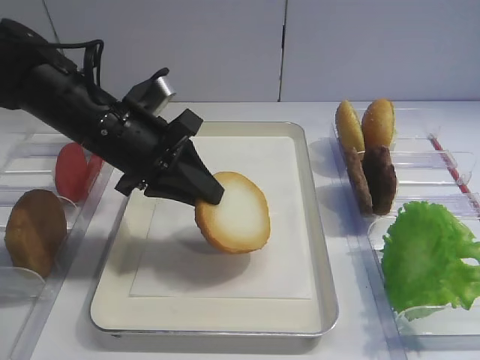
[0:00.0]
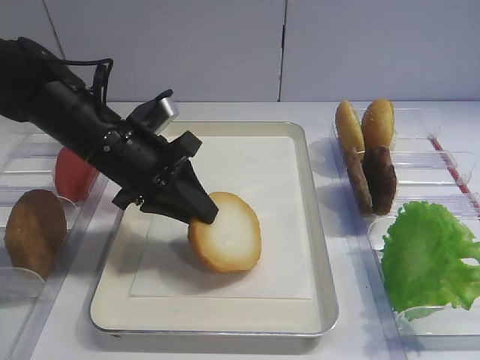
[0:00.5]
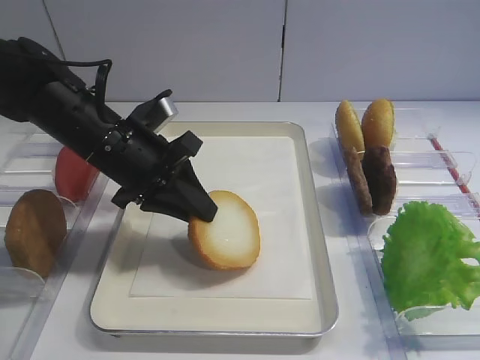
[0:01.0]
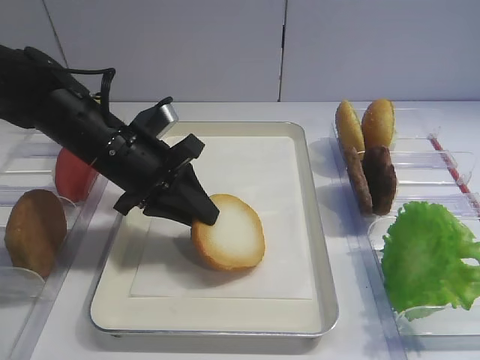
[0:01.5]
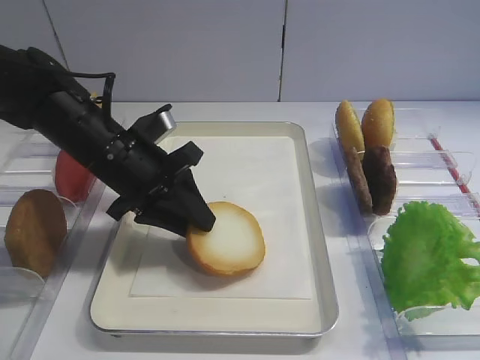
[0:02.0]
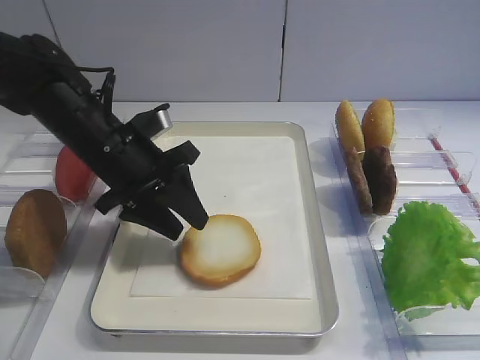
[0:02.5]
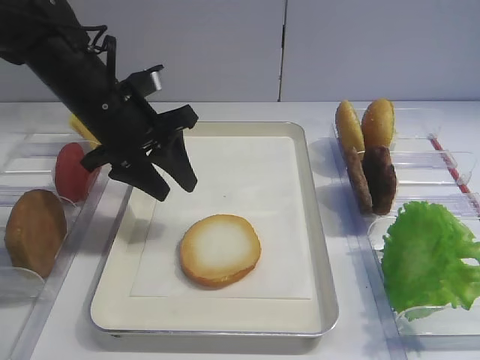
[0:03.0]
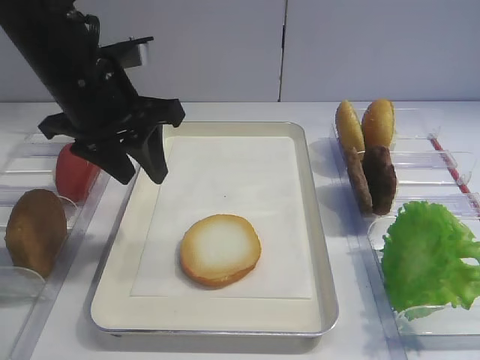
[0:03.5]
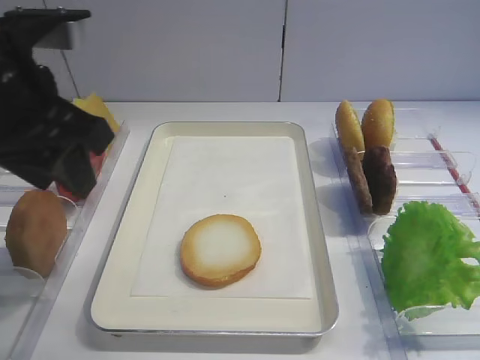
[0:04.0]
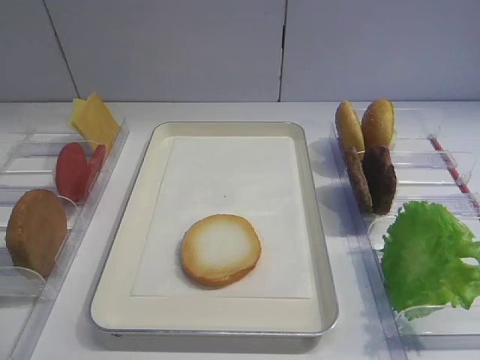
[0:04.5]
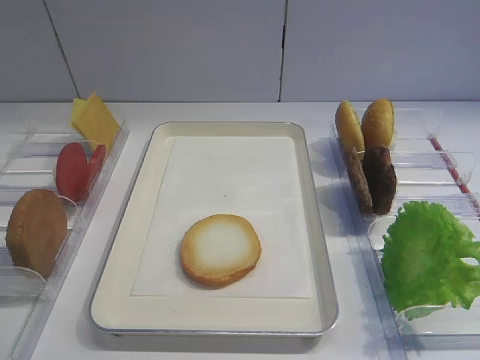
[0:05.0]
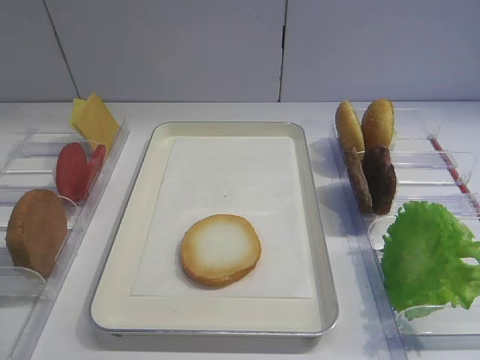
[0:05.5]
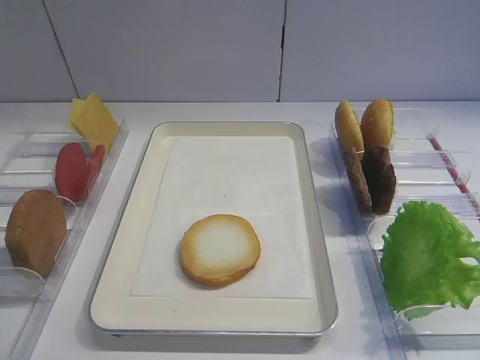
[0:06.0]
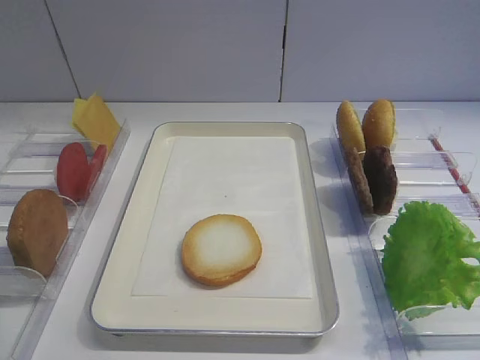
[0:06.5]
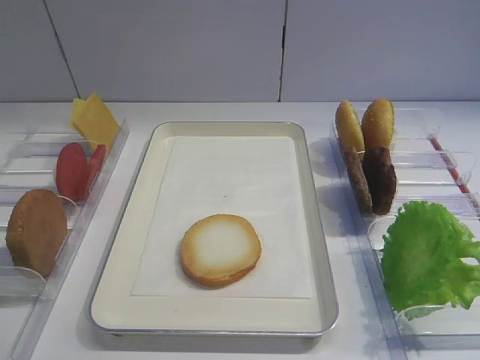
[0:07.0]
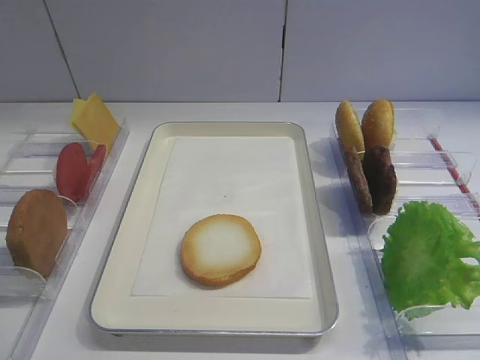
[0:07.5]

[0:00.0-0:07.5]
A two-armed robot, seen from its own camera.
Step, 0:00.0 to 0:02.5: Place the bread slice on the tray with the left gripper.
0:00.0 to 0:02.0: The grippers move only a little.
0:02.0 to 0:04.0: The left gripper moves upward and backward, some 15 cm.
0:04.0 to 0:05.5: The left gripper moves backward and to the left, approximately 25 cm.
